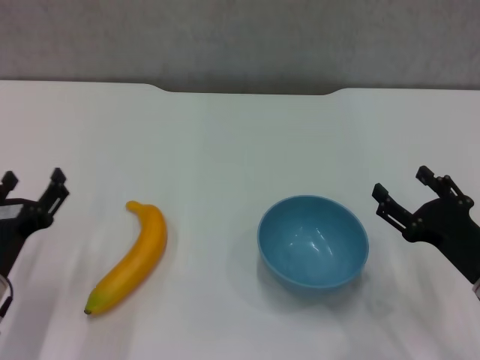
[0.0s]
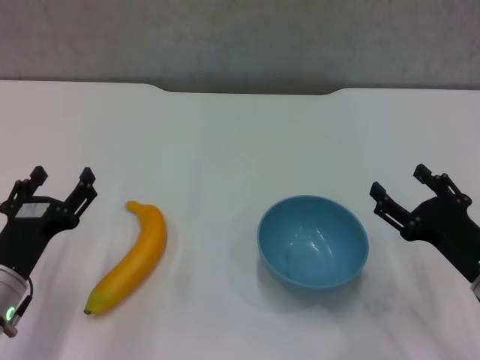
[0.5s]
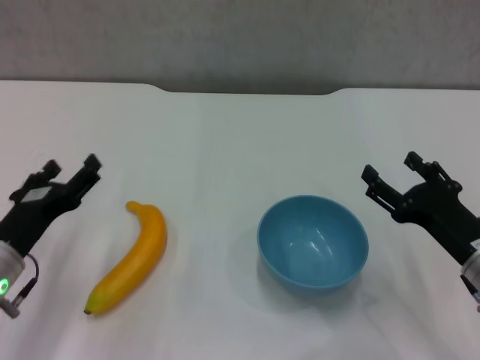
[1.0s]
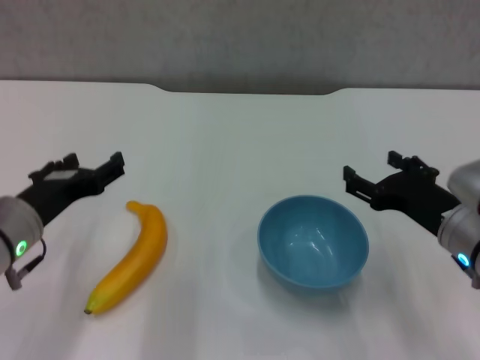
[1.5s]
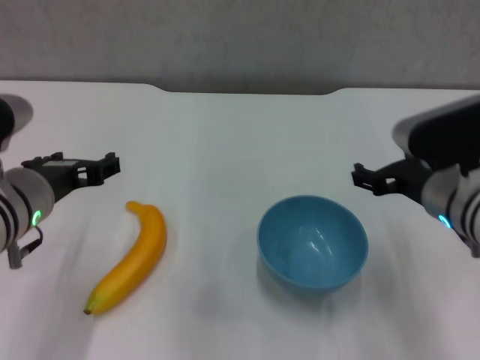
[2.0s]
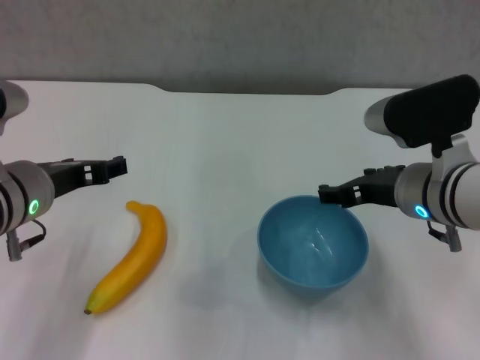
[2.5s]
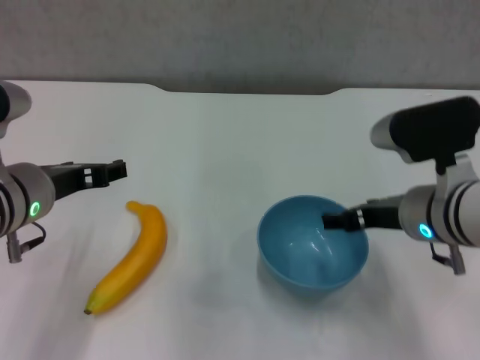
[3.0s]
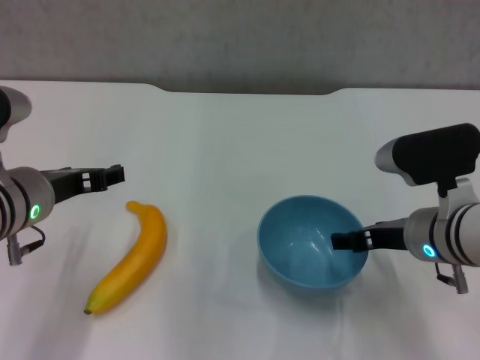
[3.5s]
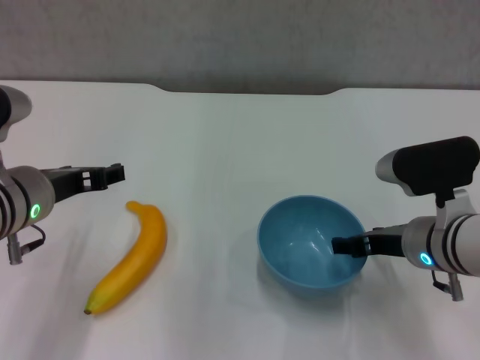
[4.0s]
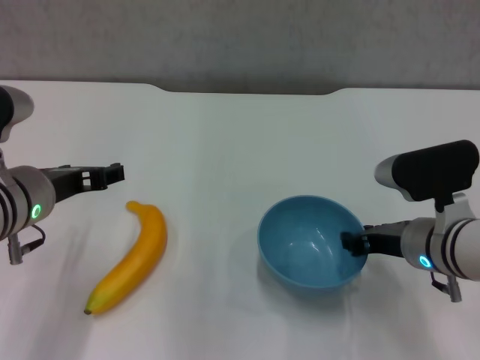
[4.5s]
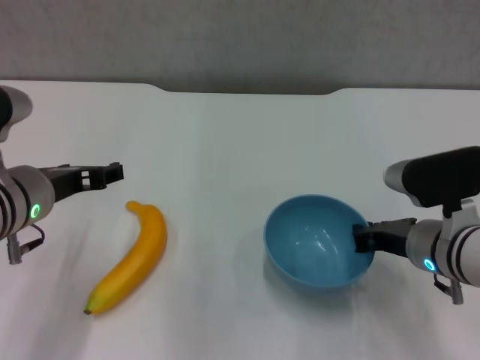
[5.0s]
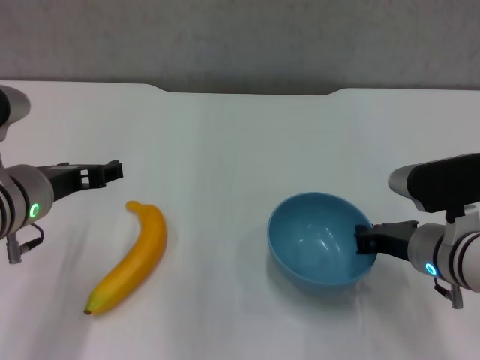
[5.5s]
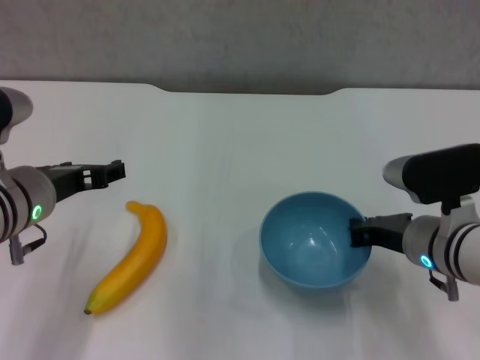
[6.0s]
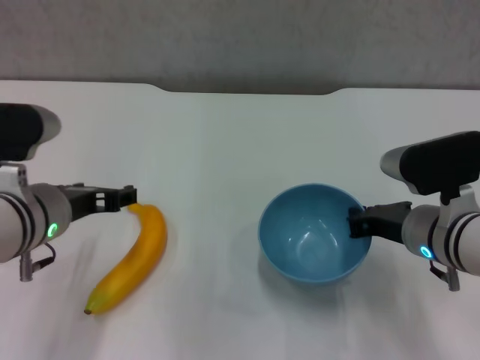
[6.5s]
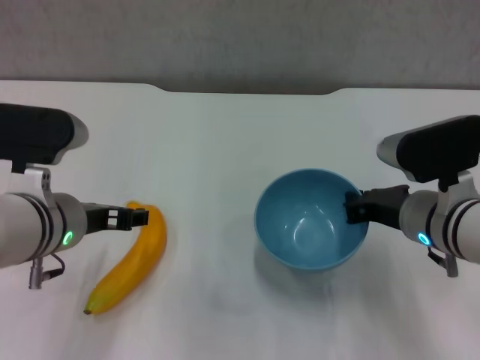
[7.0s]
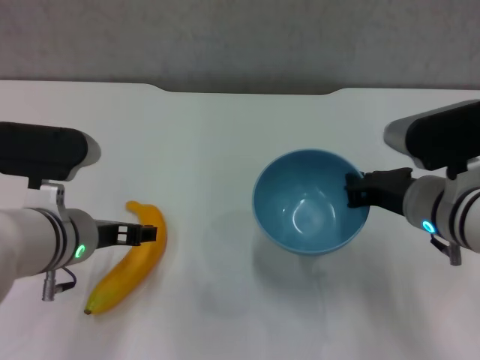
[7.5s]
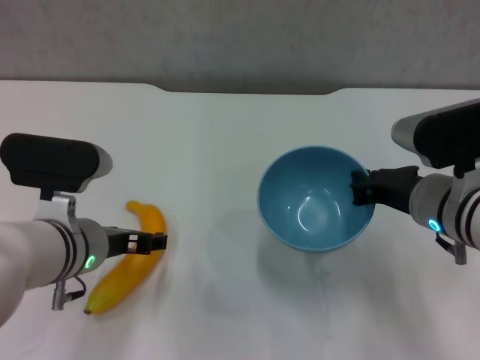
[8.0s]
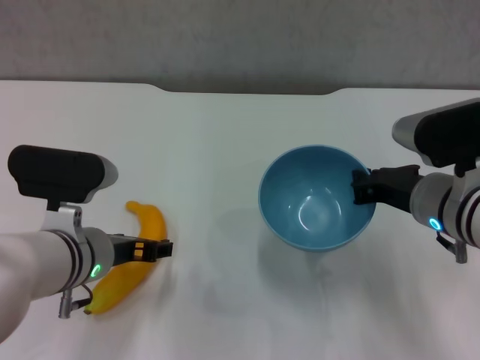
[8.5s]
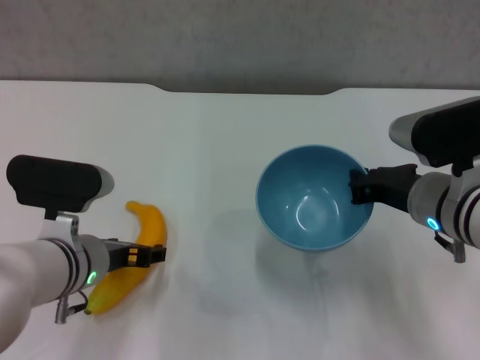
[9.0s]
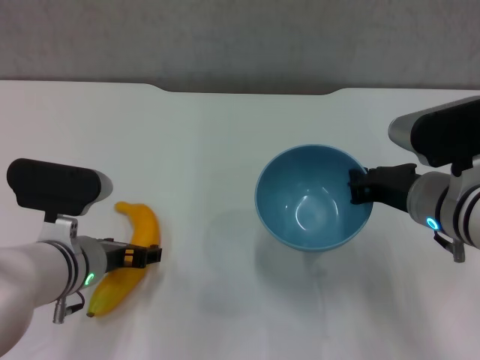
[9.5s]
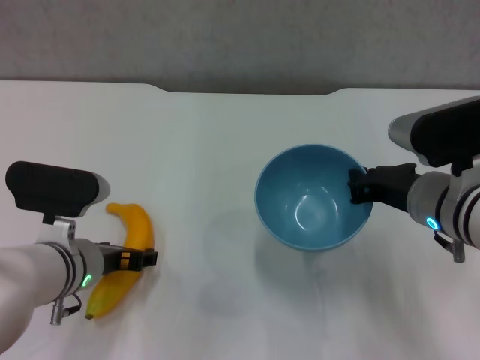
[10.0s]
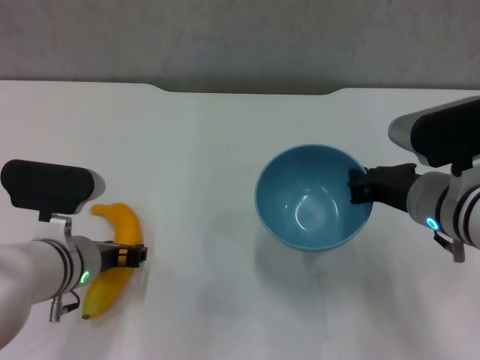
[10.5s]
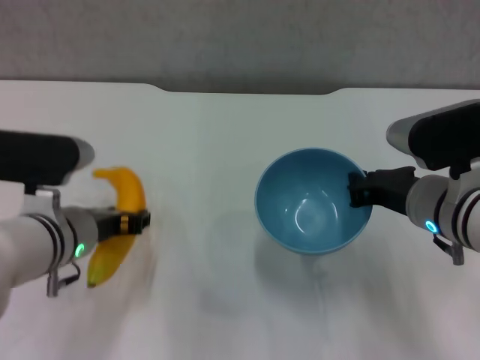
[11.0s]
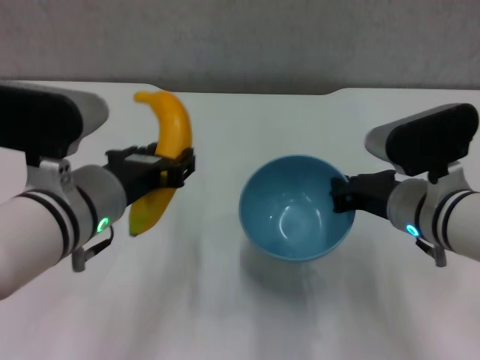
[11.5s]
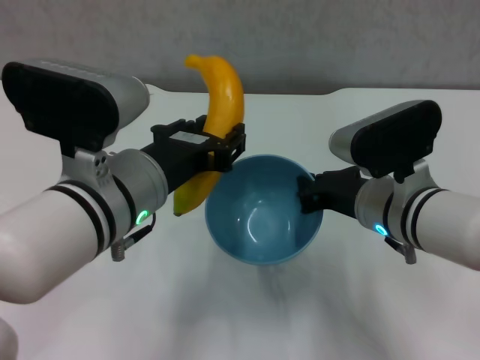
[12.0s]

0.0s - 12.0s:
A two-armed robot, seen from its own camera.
Step, 0.0s - 5.0s: Grasp the blue bowl with right gripper.
Step, 5.5s - 7.0s: Lift the blue bowl with right gripper.
Step, 7.5s - 10.5s: Grasp the banana with left gripper.
0.0s - 2.0s: The left gripper is displaced upward and to the right by roughly 15 cm, while the right gripper heads upward, to the left and forward, covering about 15 cm.
4.0s - 6.0s: The right gripper closes.
6.0s - 8.0s: The left gripper moves some 5 cm.
8.0s - 10.0s: The grippers make only small movements.
10.0s - 12.0s: The left gripper travels upward and to the right by roughly 15 cm, and closes up.

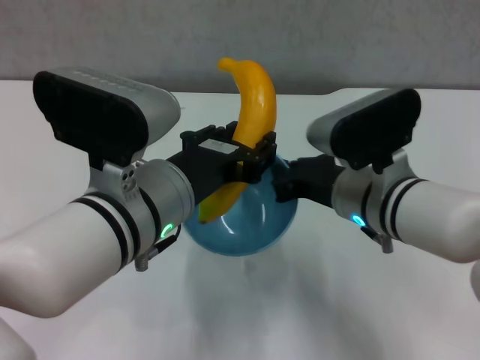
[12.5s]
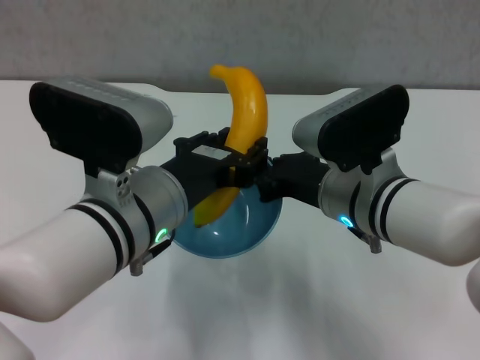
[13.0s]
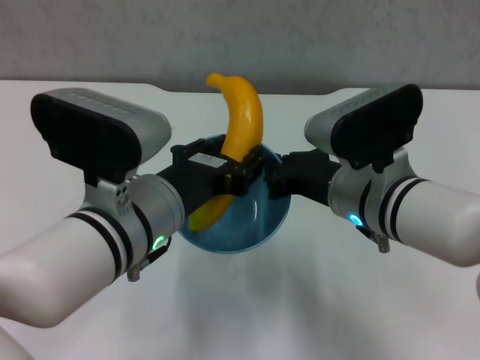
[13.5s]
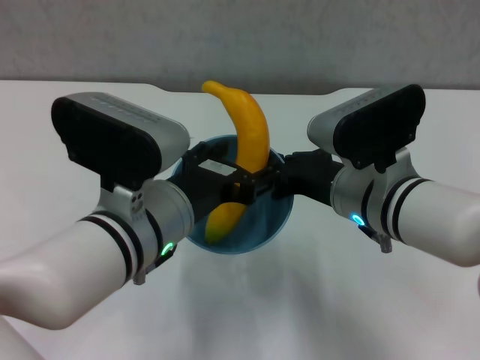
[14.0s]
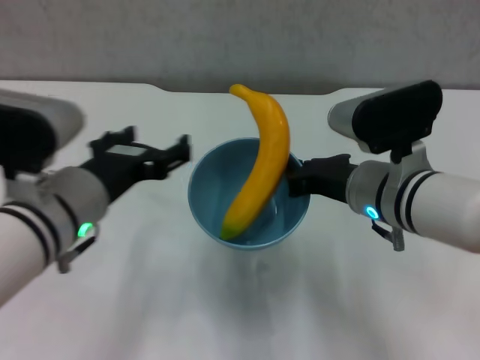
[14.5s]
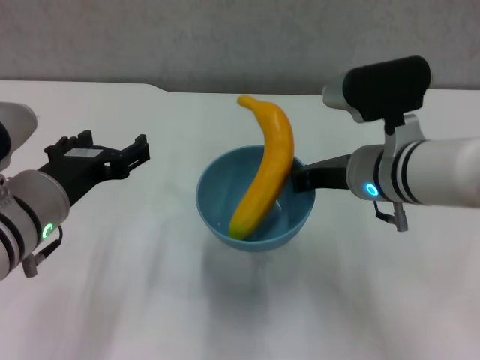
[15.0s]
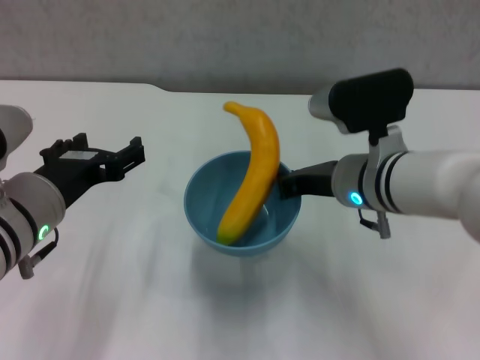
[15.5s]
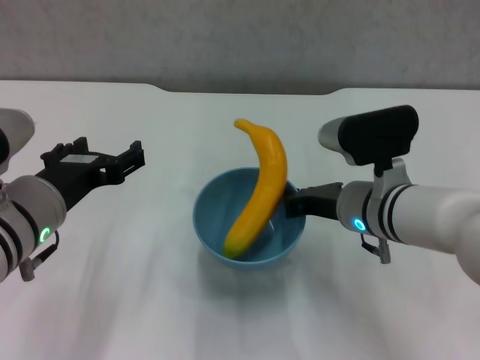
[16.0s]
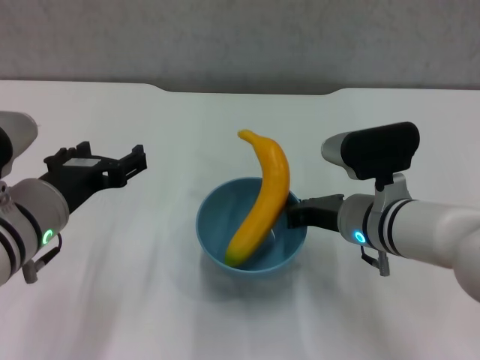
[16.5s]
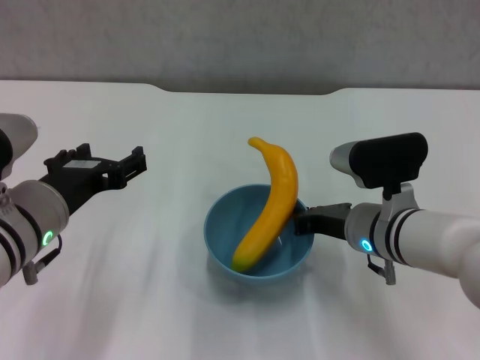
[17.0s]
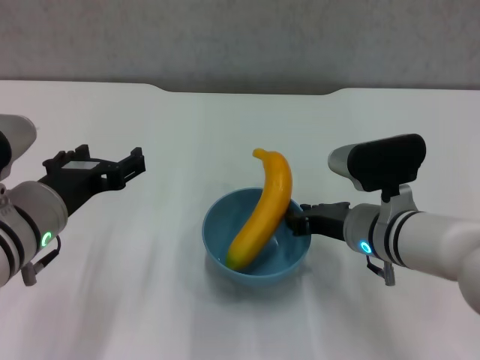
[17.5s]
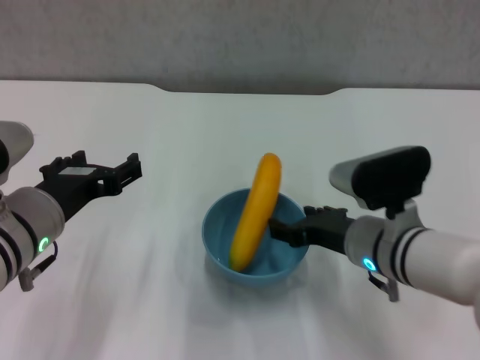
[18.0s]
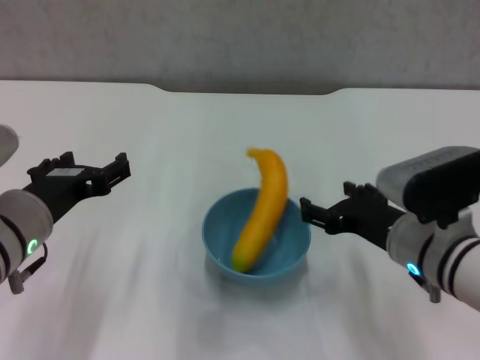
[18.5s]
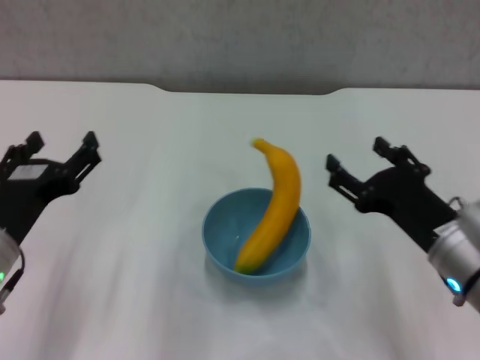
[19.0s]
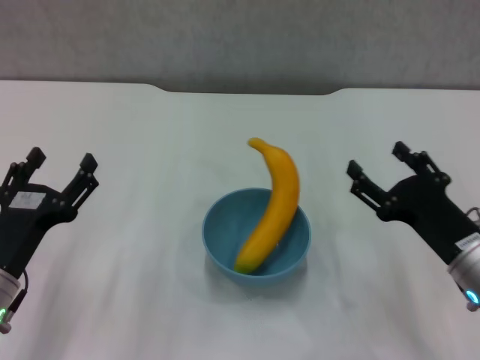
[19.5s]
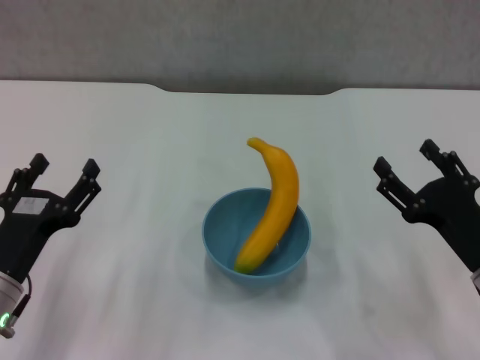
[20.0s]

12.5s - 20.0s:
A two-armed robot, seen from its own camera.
Step, 14.5s - 18.0s: Place the bowl on the table with right gripper.
12.5s - 14.5s: The left gripper heads to the left, covering some 5 cm, and opens.
14.5s - 16.5s: The right gripper travels downward by about 5 cm.
16.5s - 18.0s: The right gripper opens up.
18.0s - 20.0s: The left gripper moves downward and to the left, about 10 cm, while the right gripper heads to the right and backward, covering about 15 cm.

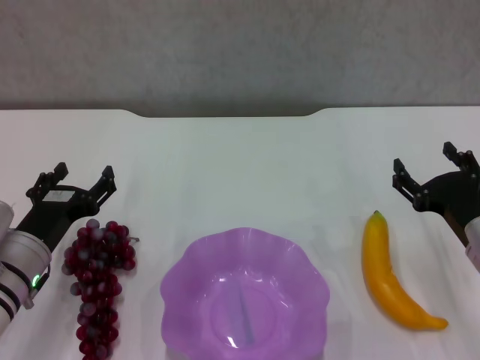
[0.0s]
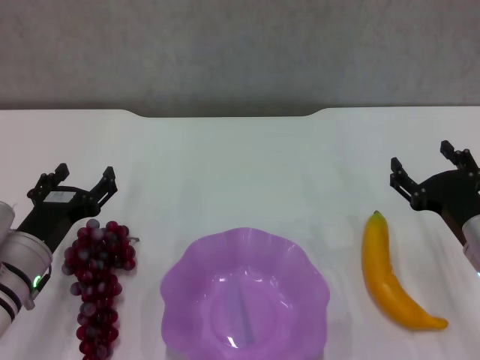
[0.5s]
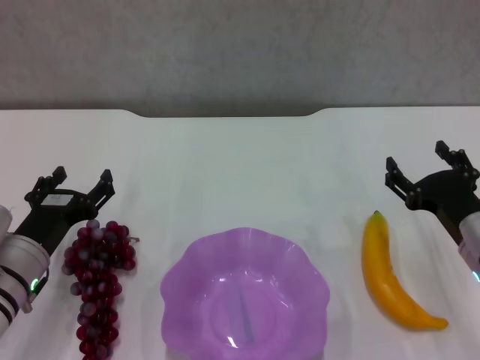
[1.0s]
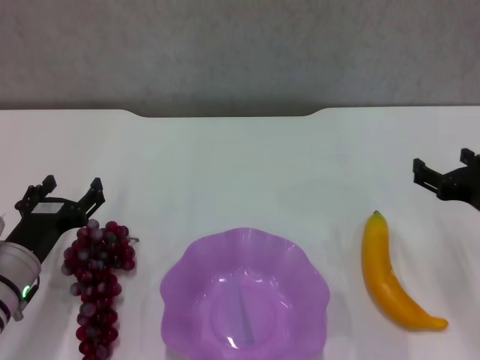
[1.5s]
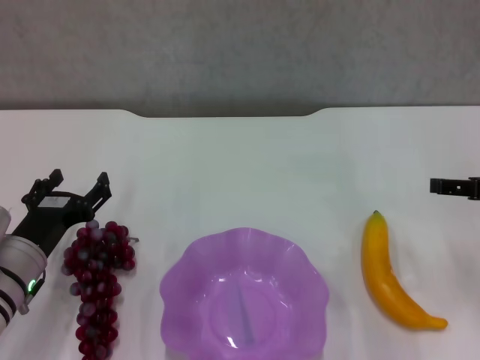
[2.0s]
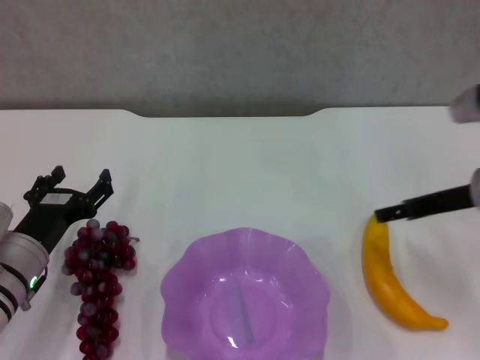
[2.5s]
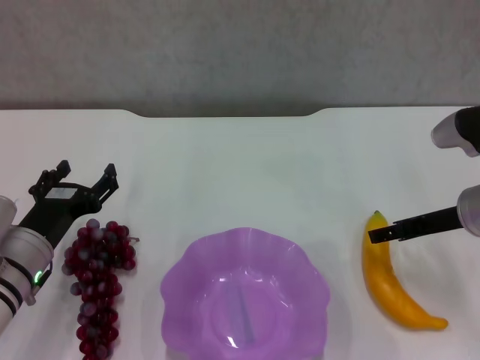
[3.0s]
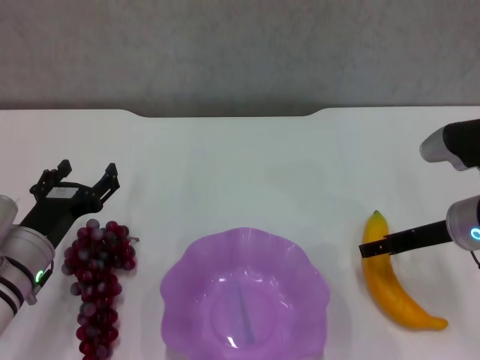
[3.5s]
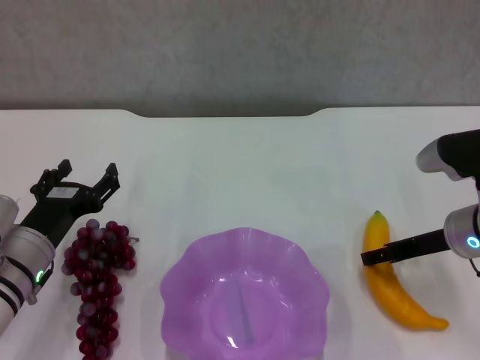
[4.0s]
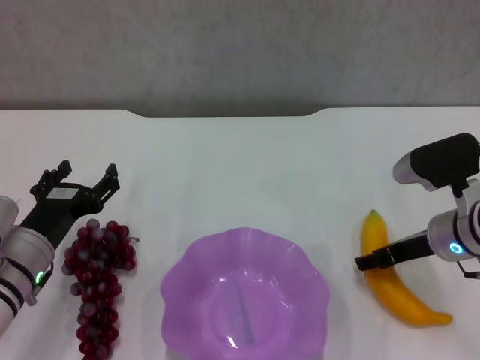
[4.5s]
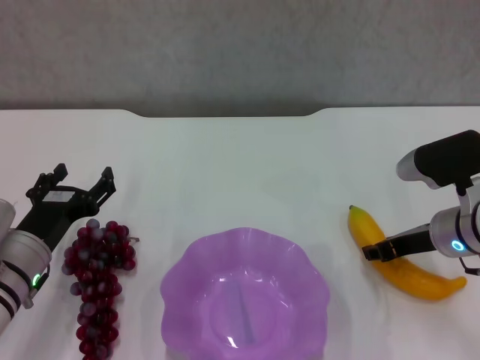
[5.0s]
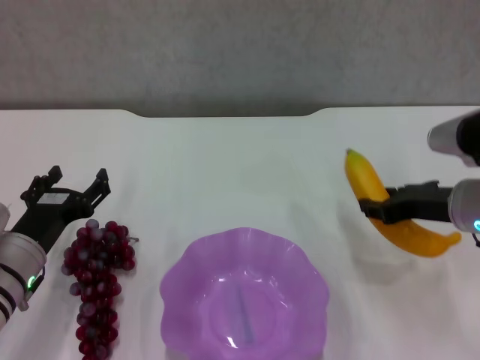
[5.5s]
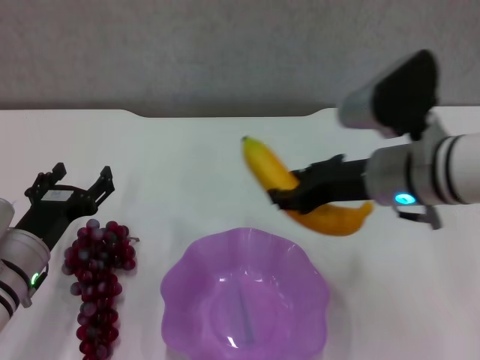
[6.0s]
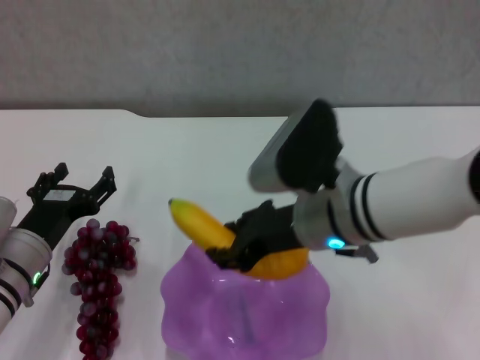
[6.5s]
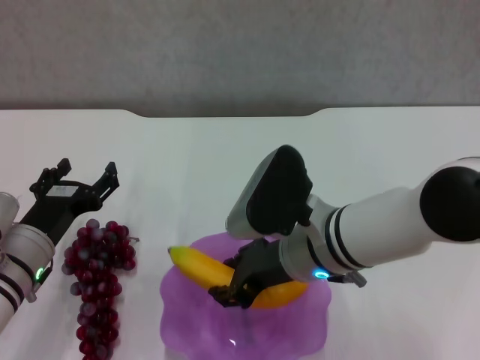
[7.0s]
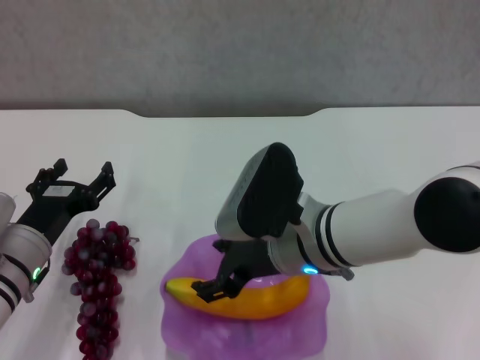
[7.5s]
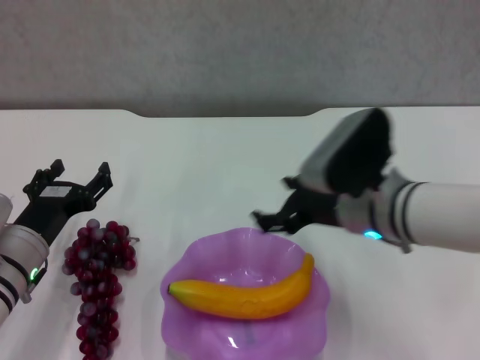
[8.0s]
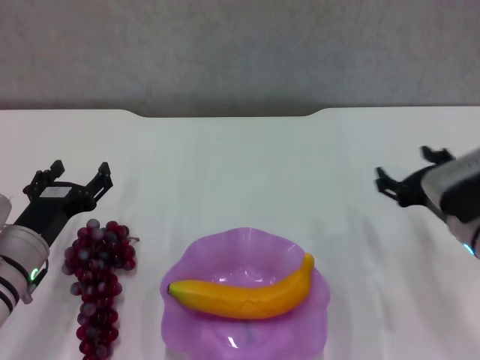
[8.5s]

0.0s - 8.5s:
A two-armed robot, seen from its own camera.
Step, 0.0s - 4.5s: Grasp the banana with right gripper.
Step, 5.0s - 7.5s: Place the banana in the purple plate with right gripper.
0.0s - 2.0s: The right gripper travels upward and to the right by approximately 15 cm.
2.0s - 4.0s: The right gripper heads downward and to the left, covering about 10 cm.
4.0s - 6.5s: The right gripper goes roughly 15 cm to the left, and closes its fingers.
6.5s - 8.5s: The right gripper goes roughly 15 cm to the right and downward, and opens.
